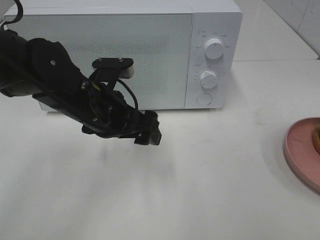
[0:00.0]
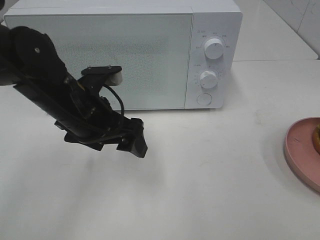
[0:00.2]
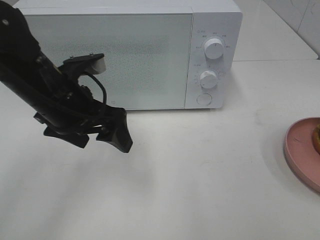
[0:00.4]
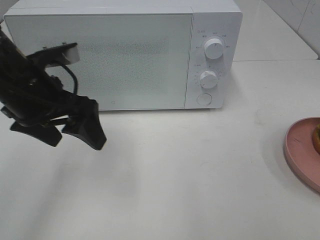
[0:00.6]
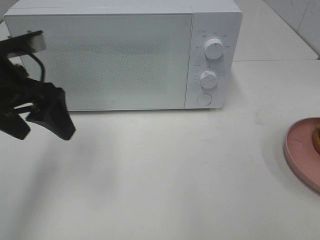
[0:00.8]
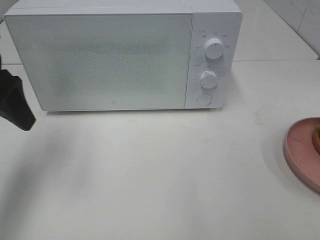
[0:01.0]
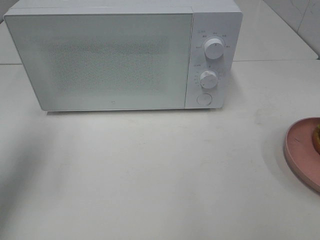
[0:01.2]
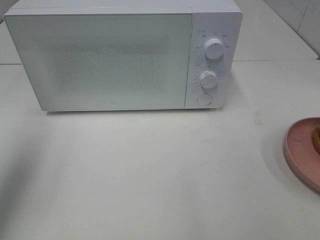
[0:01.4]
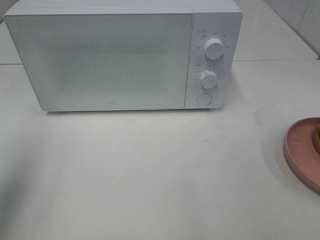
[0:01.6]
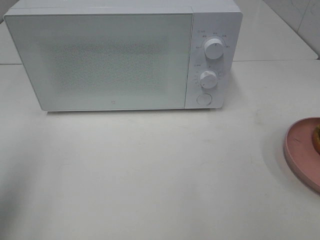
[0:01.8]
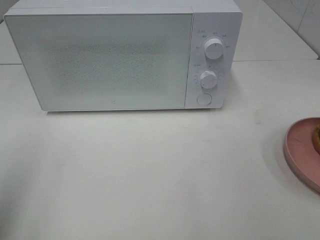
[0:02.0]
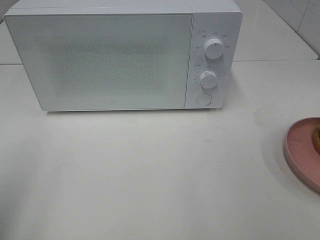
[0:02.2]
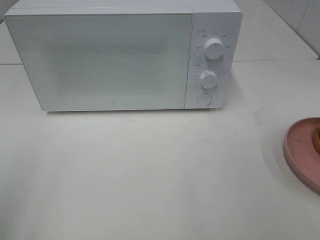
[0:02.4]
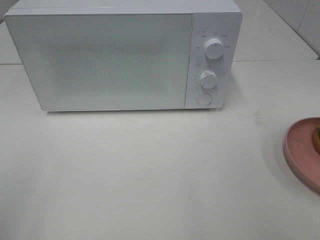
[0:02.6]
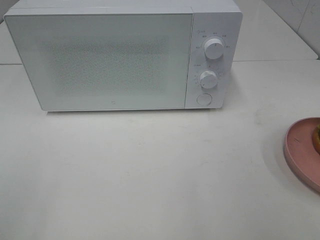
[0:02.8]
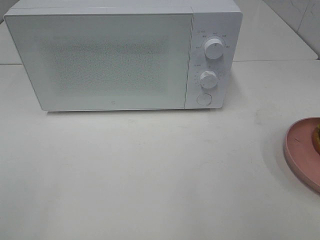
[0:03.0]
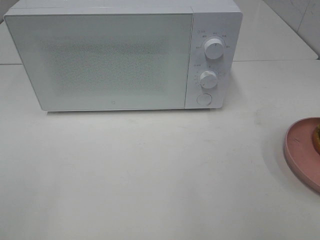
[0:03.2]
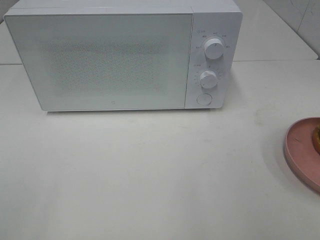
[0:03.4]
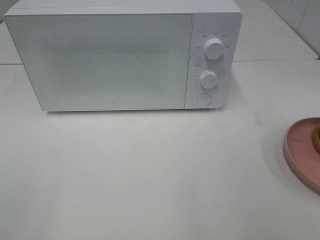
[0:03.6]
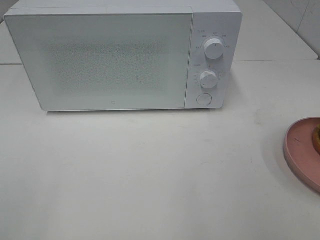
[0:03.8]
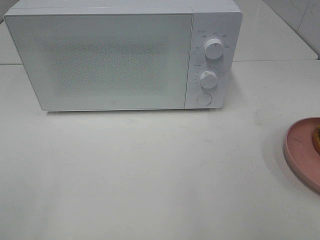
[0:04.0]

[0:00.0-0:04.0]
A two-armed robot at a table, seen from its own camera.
Task of the whole recording: Heat the burger.
0:00.0 to 0:01.4: The left gripper goes some 25 cm to the left and upward.
0:01.4 to 0:02.6: The left gripper is displaced backward by approximately 15 cm.
